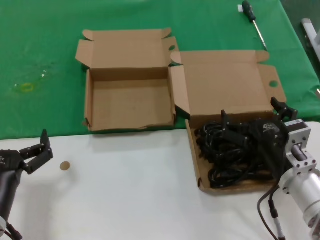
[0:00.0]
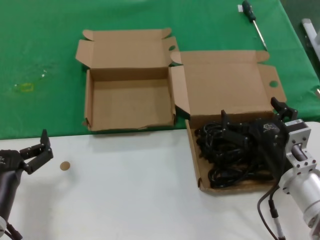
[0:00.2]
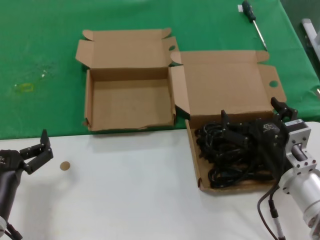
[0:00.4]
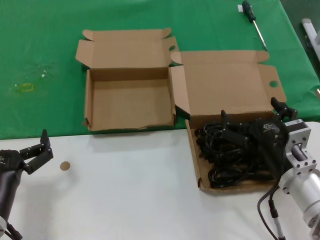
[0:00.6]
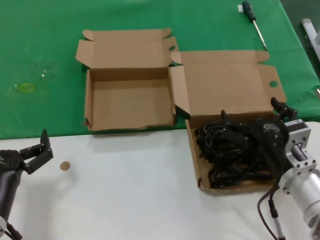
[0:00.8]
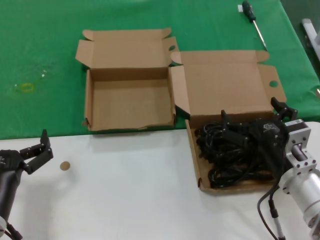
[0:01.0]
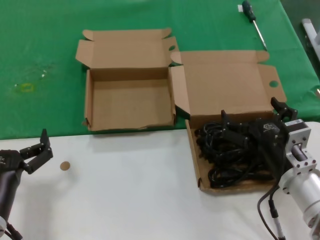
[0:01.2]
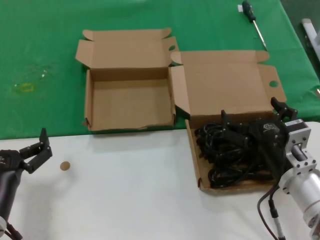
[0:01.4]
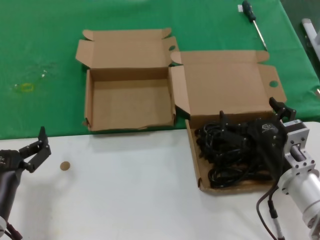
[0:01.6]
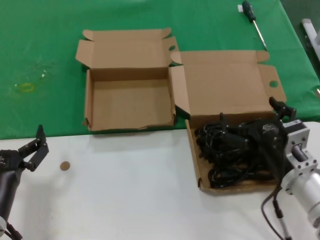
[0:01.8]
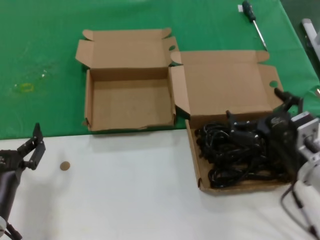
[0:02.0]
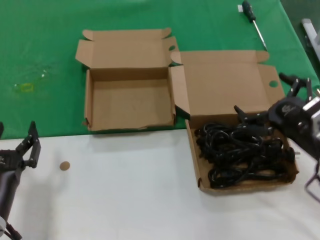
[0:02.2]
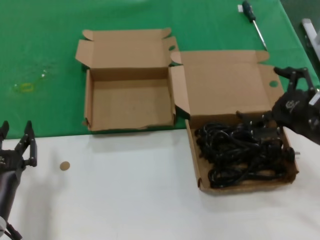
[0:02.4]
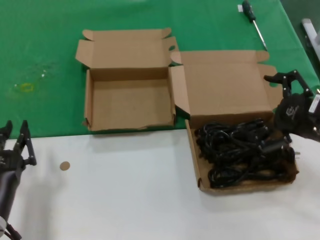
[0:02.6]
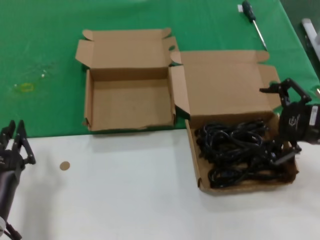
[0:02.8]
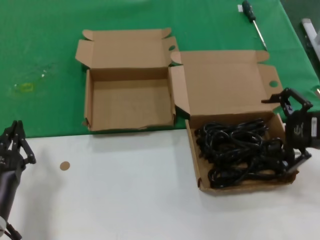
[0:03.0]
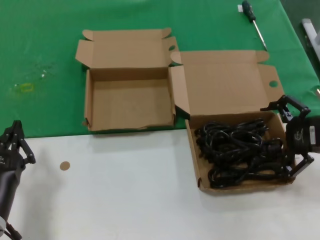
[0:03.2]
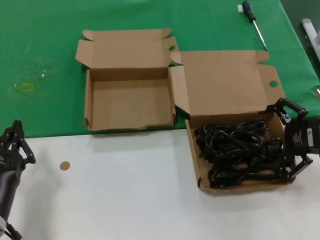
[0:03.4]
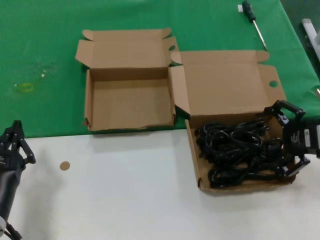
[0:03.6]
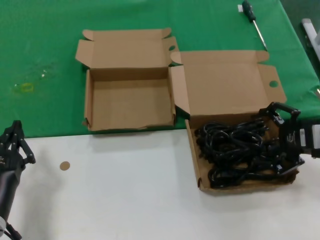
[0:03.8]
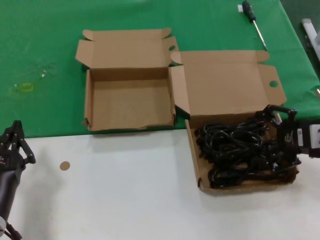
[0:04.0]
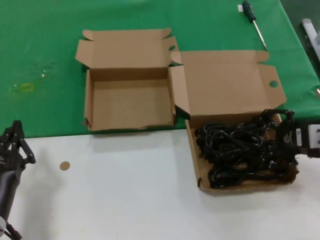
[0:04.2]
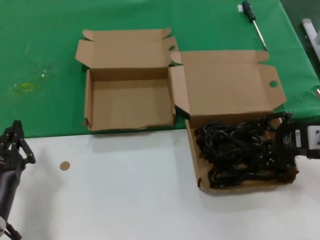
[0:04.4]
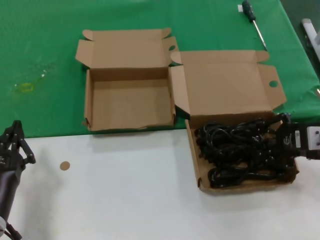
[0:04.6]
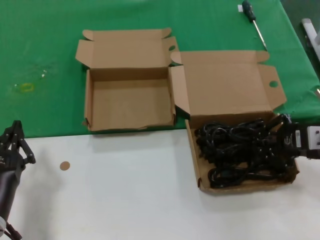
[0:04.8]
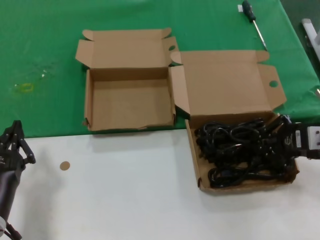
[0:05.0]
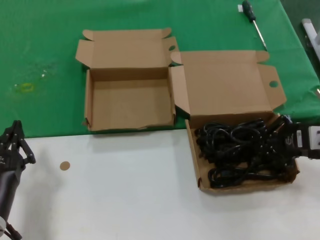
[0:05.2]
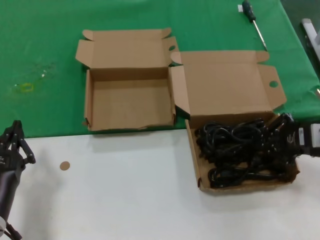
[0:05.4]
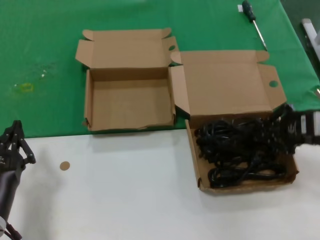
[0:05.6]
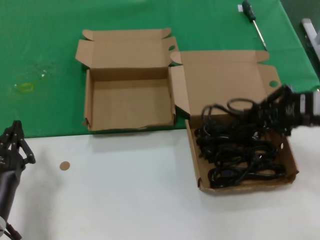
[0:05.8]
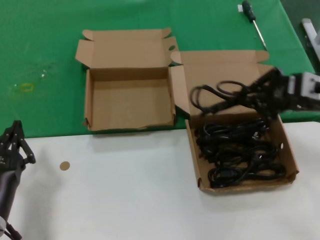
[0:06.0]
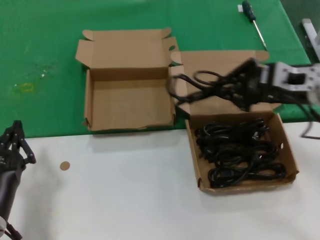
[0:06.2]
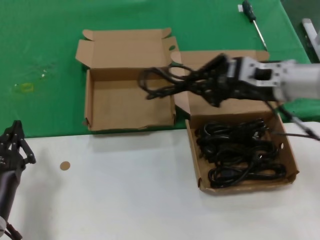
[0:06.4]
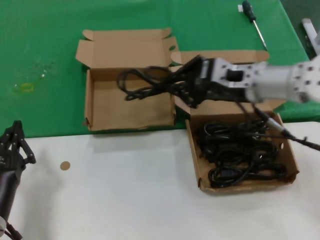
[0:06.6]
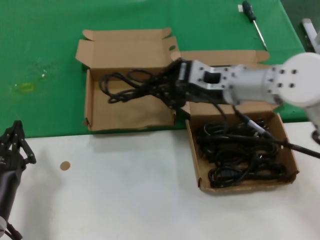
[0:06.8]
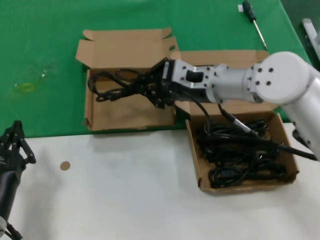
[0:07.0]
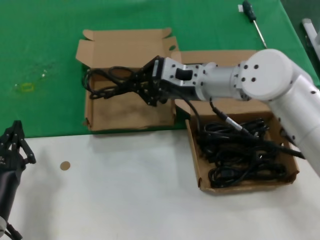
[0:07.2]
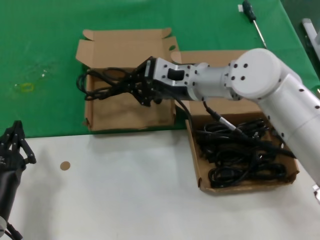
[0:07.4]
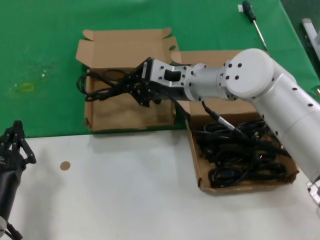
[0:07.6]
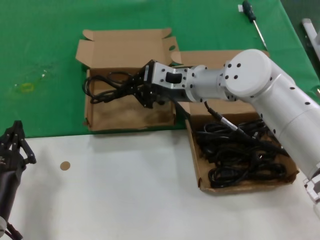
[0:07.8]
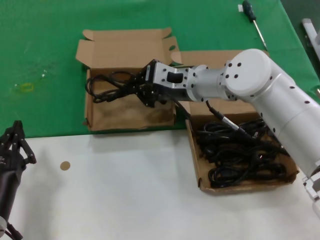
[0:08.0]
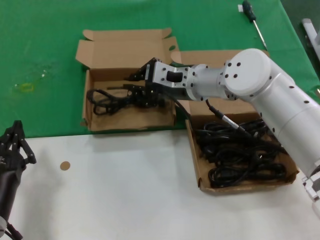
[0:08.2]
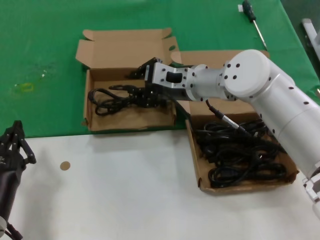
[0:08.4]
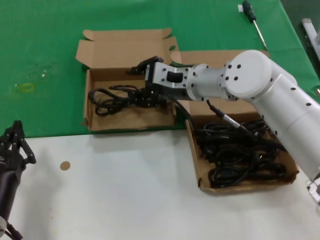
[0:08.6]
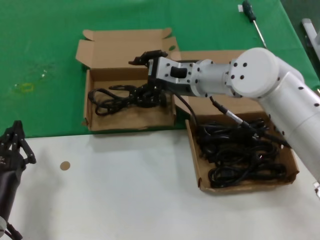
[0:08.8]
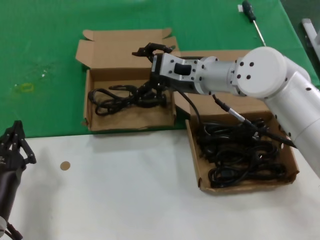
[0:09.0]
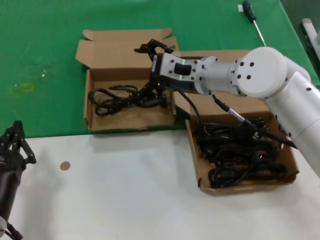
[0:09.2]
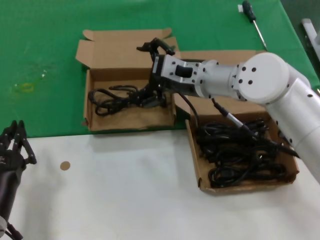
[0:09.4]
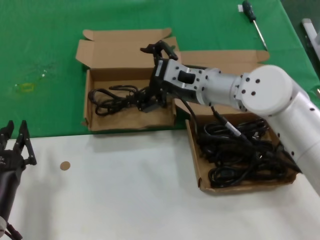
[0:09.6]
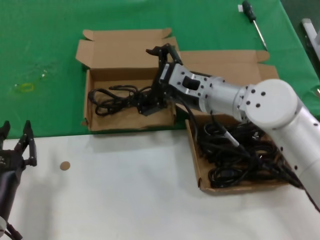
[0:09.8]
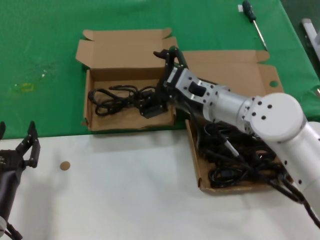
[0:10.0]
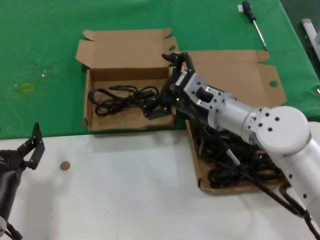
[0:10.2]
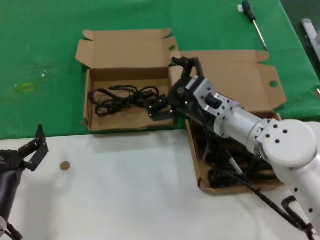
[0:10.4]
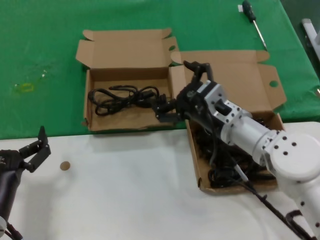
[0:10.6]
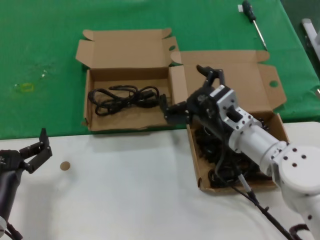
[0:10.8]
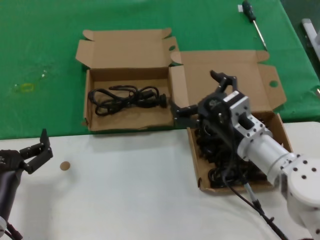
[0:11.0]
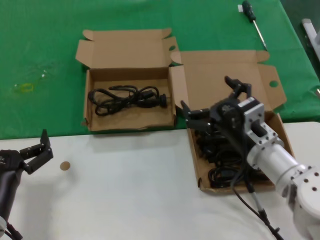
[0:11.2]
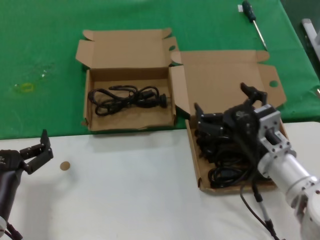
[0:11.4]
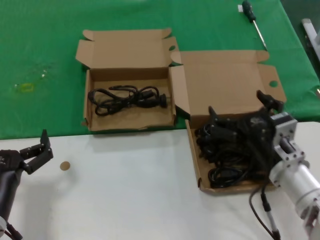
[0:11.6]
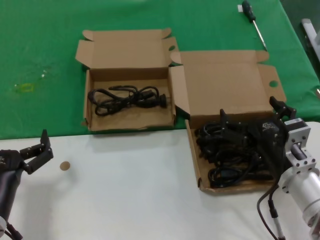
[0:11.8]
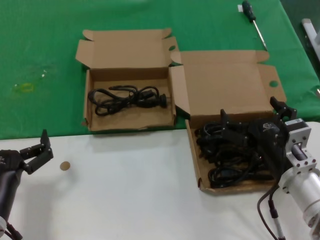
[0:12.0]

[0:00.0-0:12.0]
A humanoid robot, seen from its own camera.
Task of the whole recording: take the parts from the box containing them and put them into an empty box.
Step, 0:00.0 to 0:05.2: Grasp the data cable.
Step, 0:05.4 to 0:08.8: Place the data cable in the another box.
0:00.0 to 0:01.6: Both hands stay put.
0:01.6 to 0:03.0: The right hand travels upward and to the right by roughly 20 cm.
0:03.0 to 0:04.4: There are only small adjustments of the hands.
0:04.4 to 0:06.0: The right hand shifts some 5 cm upward.
0:06.0 to 0:07.6: The right hand goes roughly 25 cm to the left and forward.
0:07.6 to 0:09.0: The hands move only a little.
0:09.0 to 0:10.4: The right hand heads downward and backward, covering some 10 cm.
0:10.4 to 0:12.0: The right hand moves backward, to the right and downward, roughly 15 cm.

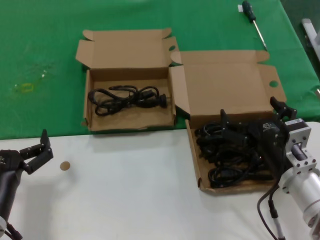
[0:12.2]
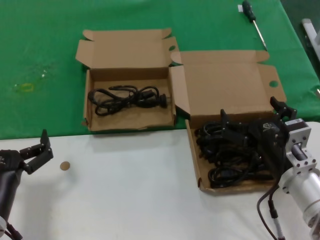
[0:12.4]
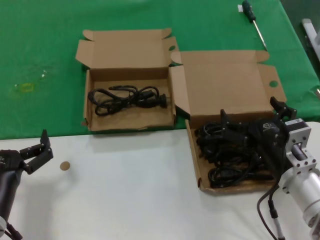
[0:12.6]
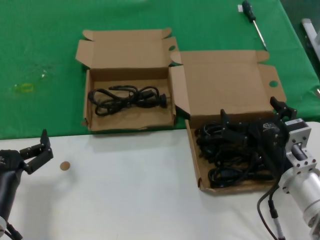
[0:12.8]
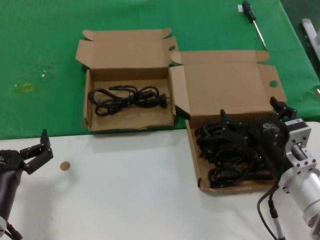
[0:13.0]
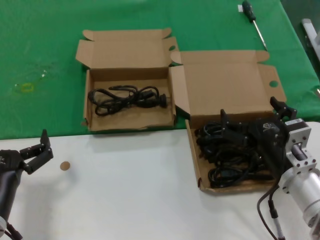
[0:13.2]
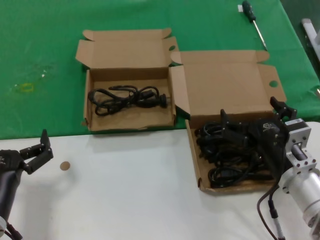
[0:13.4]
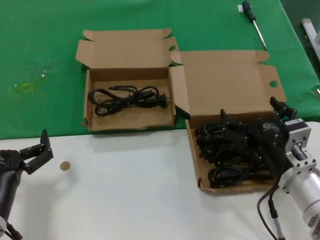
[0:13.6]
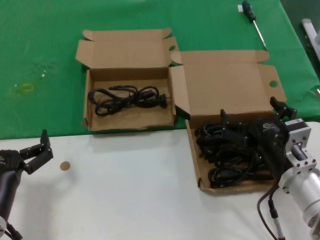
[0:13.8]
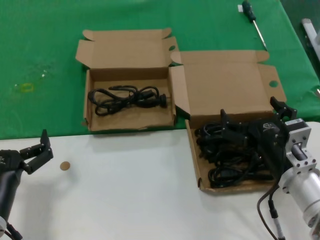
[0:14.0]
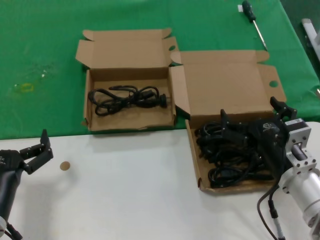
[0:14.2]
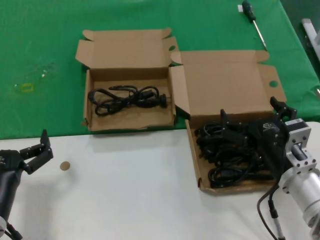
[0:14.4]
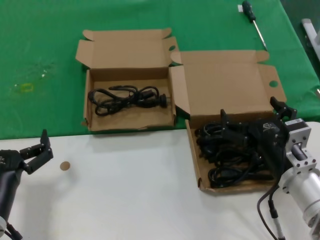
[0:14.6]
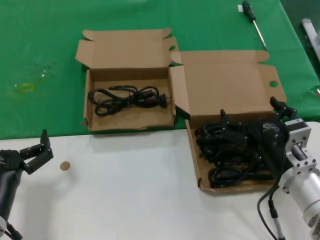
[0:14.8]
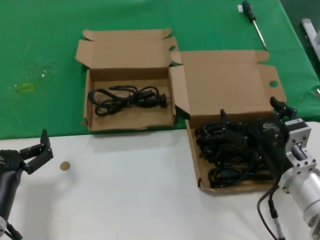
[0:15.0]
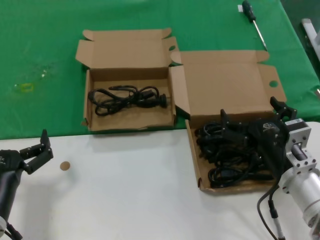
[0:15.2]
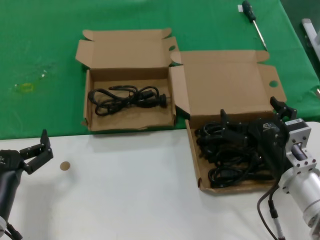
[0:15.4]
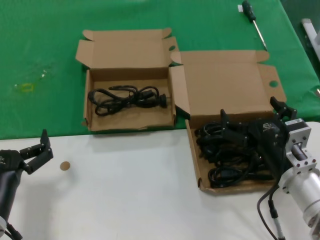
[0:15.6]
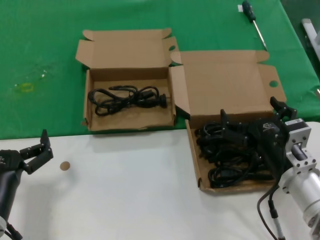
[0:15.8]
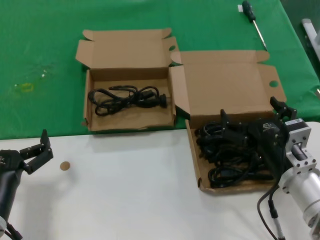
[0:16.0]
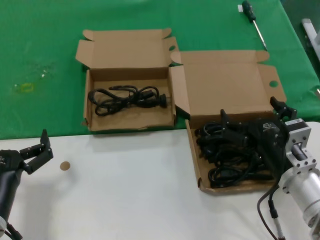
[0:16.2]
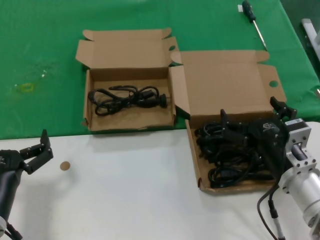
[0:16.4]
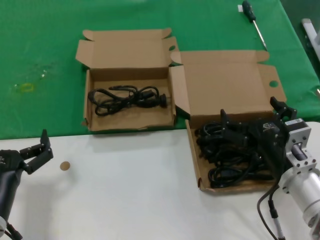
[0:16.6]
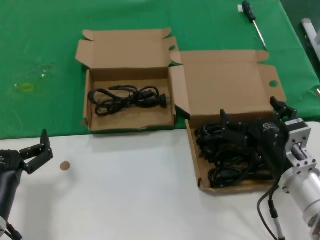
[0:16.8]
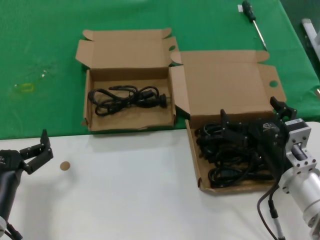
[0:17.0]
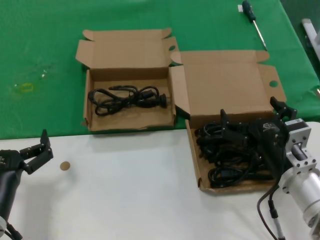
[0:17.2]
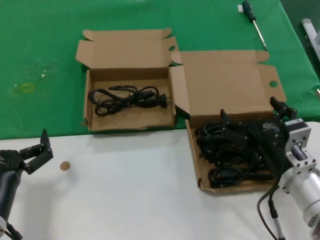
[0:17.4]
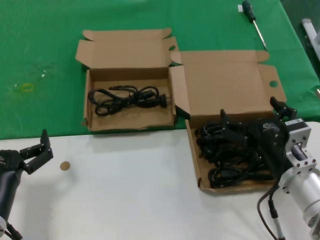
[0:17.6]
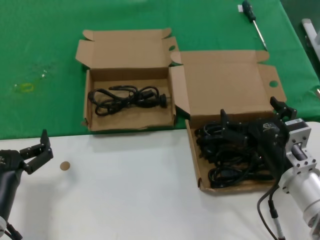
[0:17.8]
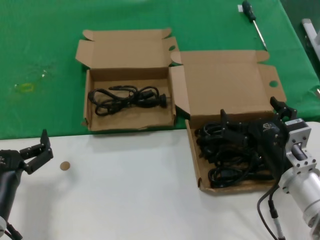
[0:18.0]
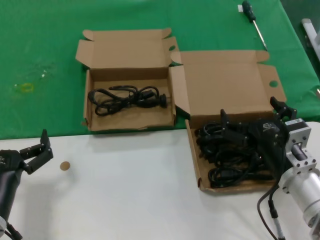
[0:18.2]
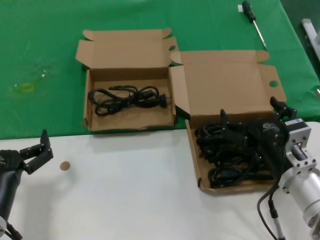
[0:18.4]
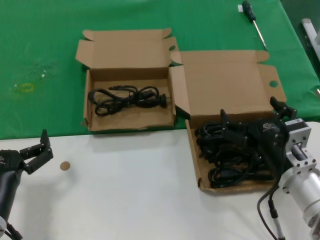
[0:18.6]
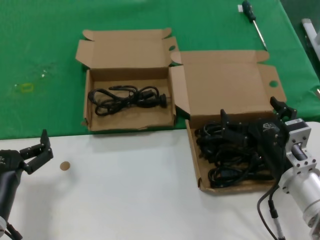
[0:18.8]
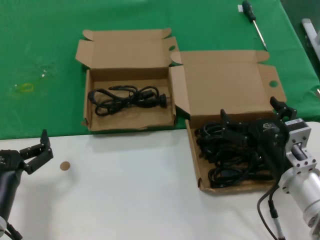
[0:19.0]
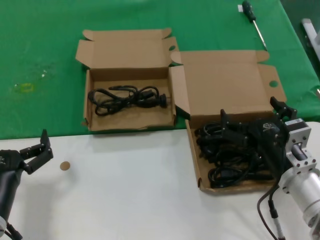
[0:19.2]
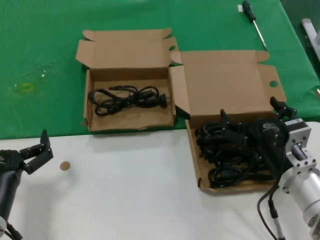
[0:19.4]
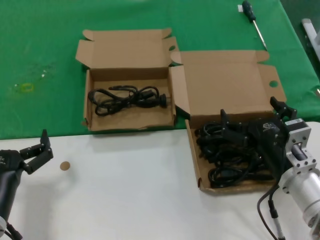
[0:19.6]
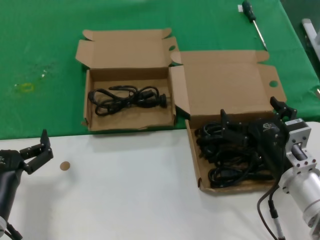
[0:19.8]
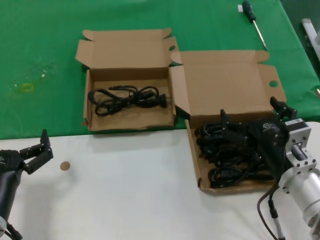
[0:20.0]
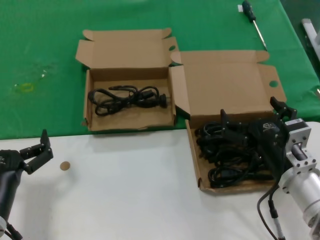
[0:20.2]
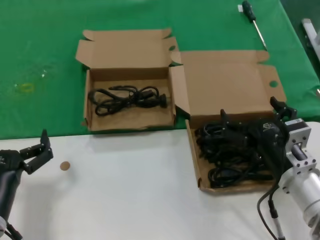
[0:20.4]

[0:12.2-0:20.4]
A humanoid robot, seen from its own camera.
Task of the whole recording: take the parts from the box containing them and put them into an empty box.
0:12.2 to 0:20.4: The two hands keep their place.
